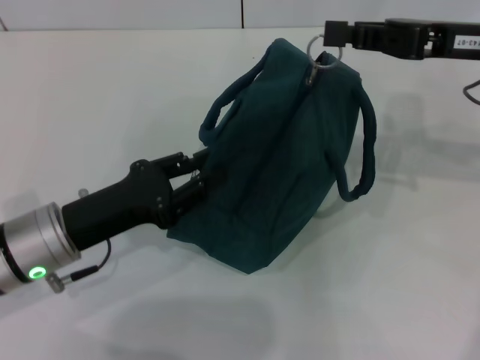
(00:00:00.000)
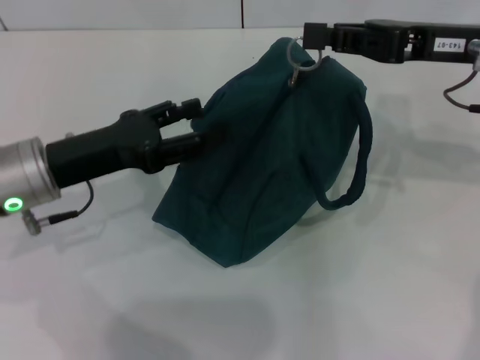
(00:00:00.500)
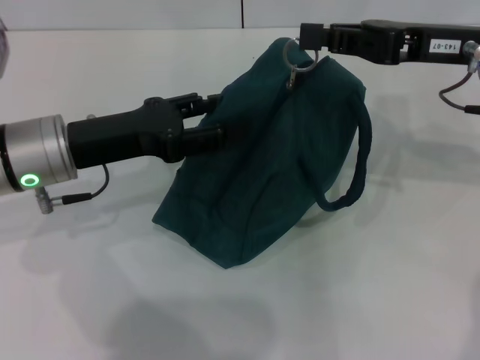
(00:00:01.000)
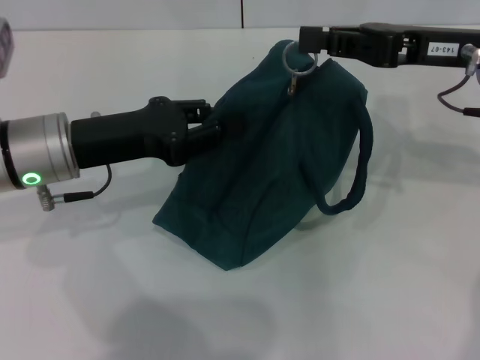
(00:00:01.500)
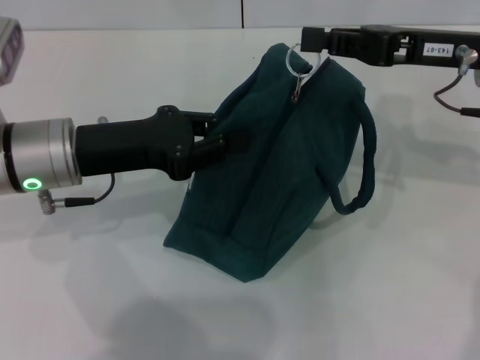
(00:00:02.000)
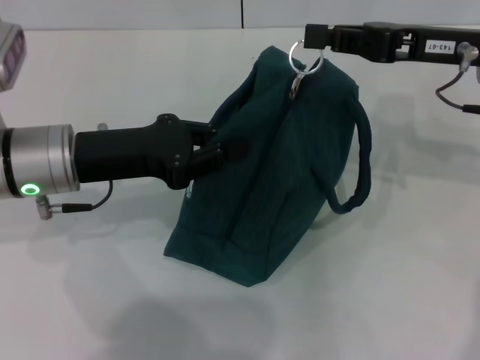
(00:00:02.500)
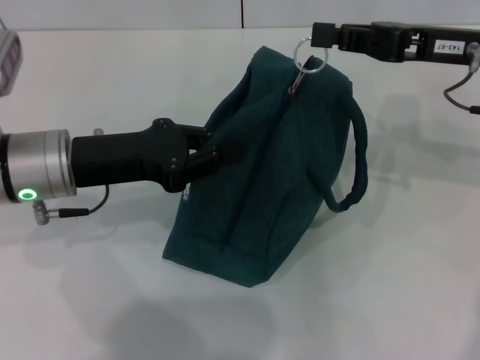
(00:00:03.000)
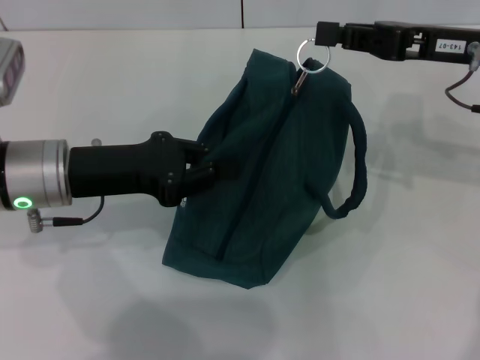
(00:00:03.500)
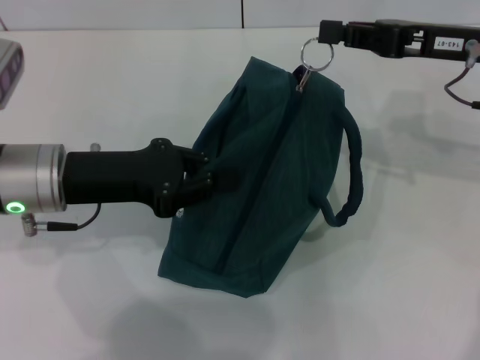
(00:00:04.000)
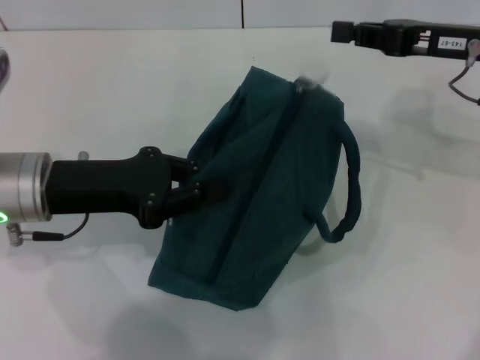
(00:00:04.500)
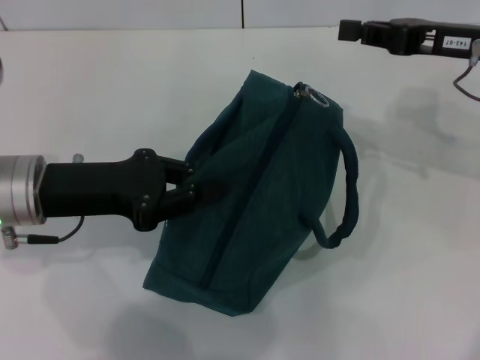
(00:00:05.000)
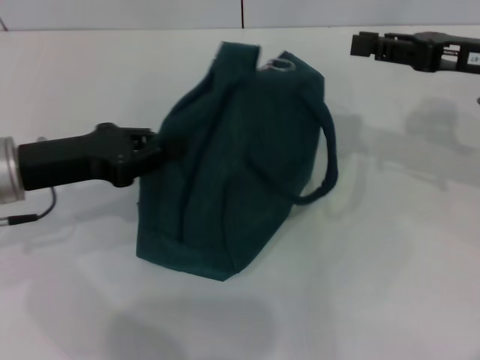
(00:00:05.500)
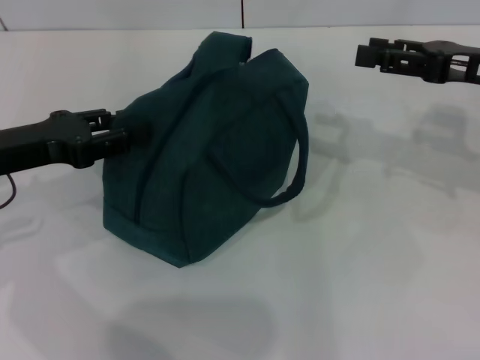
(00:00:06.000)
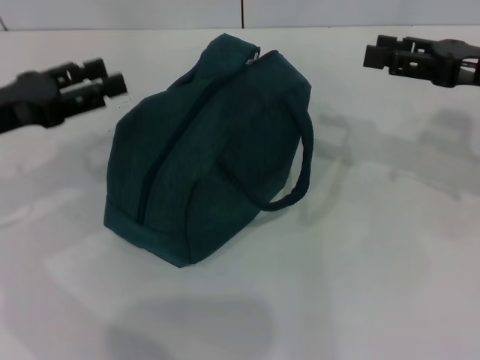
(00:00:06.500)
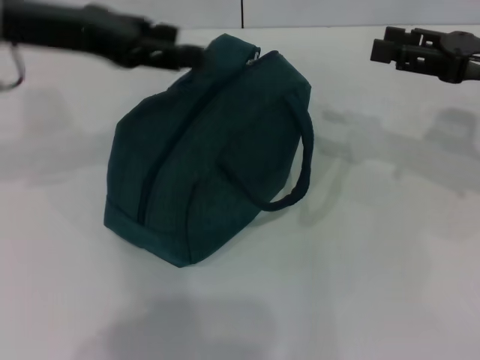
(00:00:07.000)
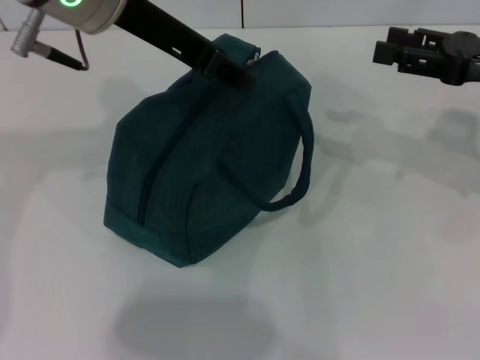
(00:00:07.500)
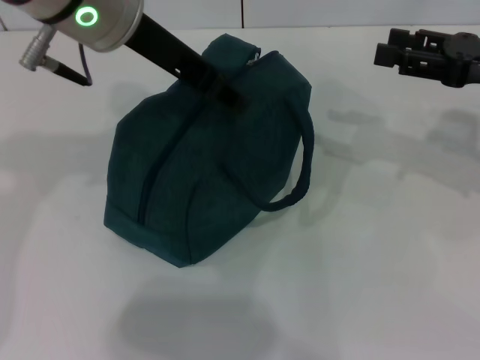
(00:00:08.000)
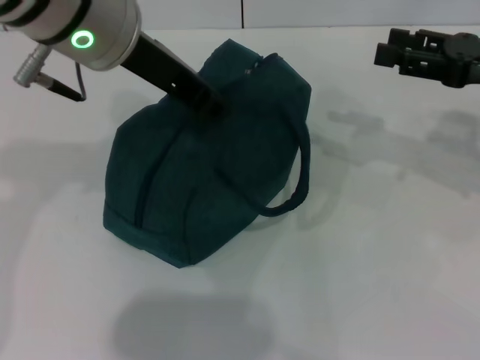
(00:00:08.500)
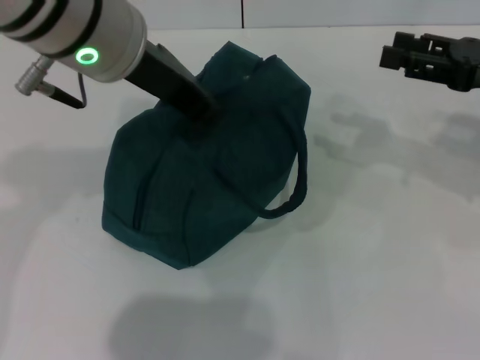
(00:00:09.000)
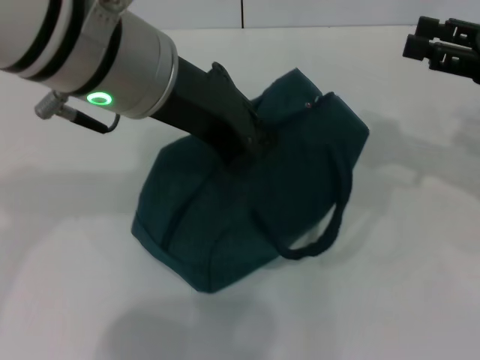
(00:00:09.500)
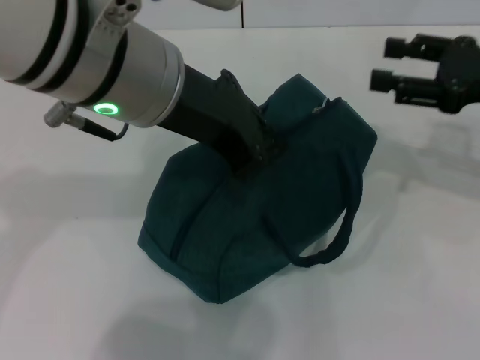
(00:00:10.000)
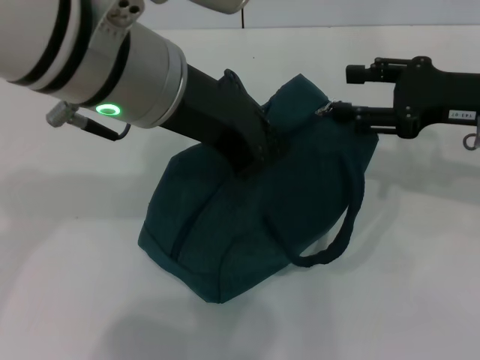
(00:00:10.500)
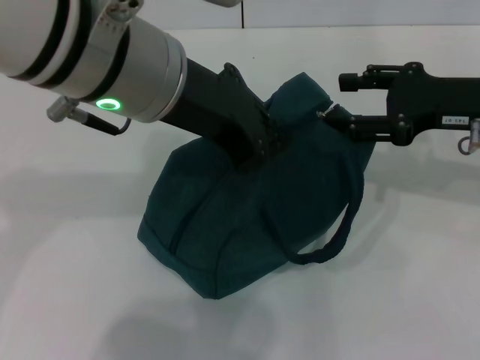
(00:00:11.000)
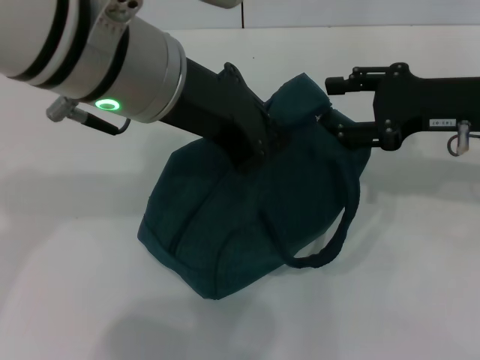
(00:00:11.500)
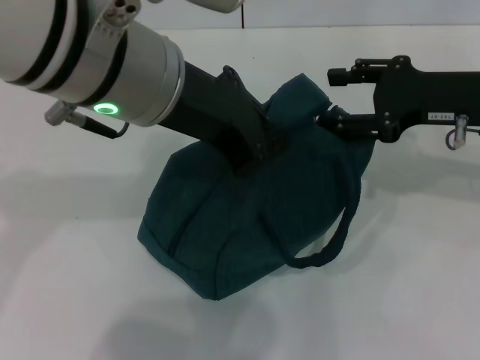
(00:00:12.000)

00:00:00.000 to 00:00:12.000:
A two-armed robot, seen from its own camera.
00:00:00.000 to 00:00:02.000: The left gripper shifts approximately 10 cm upward and forward, and opens, then closes once more.
00:00:04.000 to 00:00:06.000: The left gripper is displaced to the left by approximately 5 cm. Meanwhile the right gripper opens up.
00:00:06.000 to 00:00:08.000: The left gripper shifts some 25 cm to the right and upward, and opens.
00:00:08.000 to 00:00:10.000: The left gripper moves backward, roughly 5 cm, and closes its fingers.
00:00:10.000 to 00:00:12.000: The right gripper shifts by approximately 5 cm.

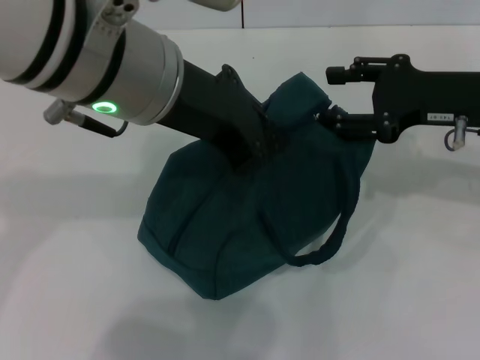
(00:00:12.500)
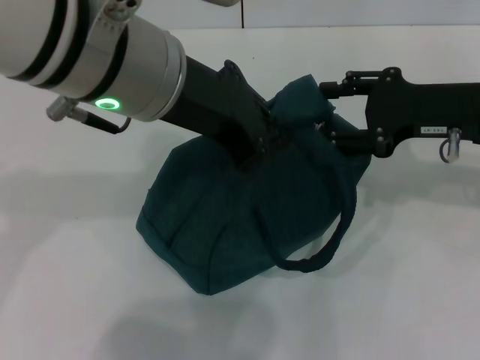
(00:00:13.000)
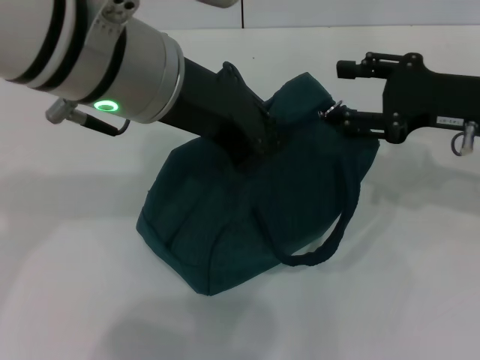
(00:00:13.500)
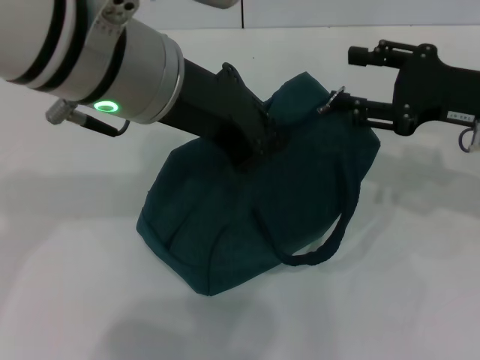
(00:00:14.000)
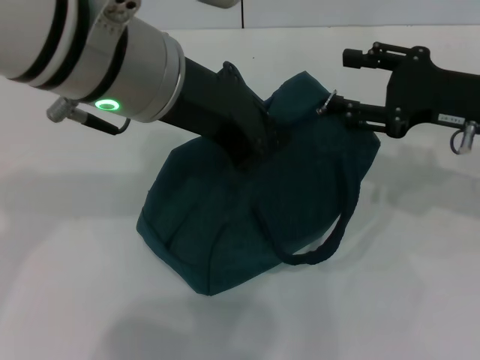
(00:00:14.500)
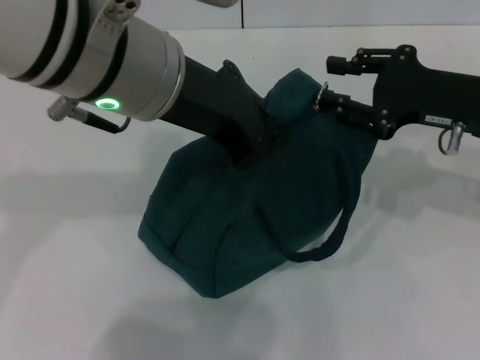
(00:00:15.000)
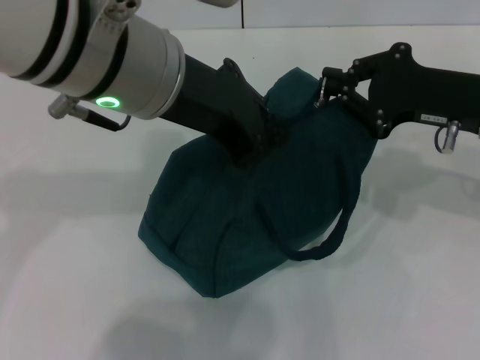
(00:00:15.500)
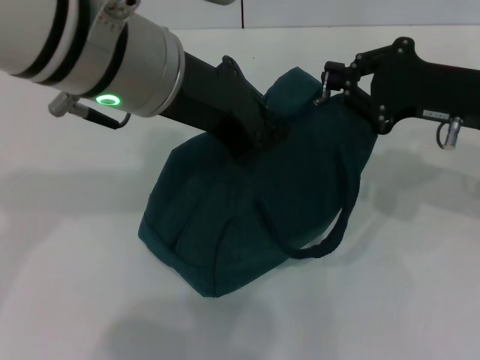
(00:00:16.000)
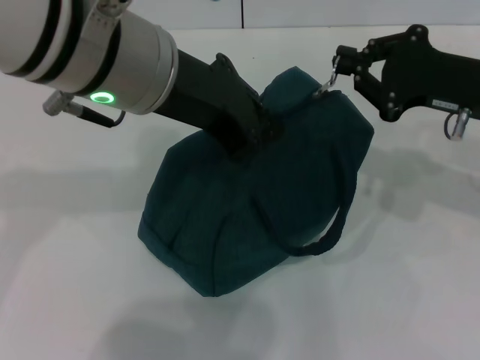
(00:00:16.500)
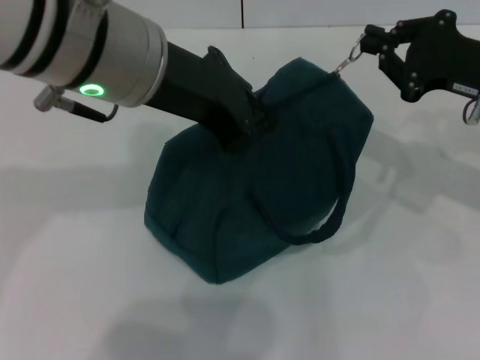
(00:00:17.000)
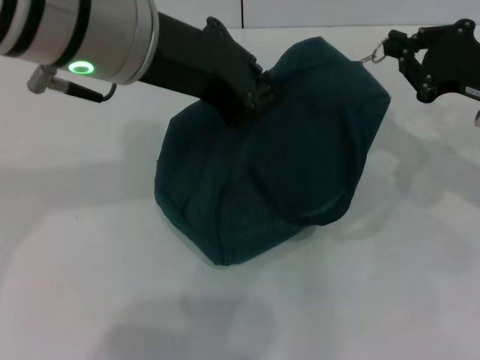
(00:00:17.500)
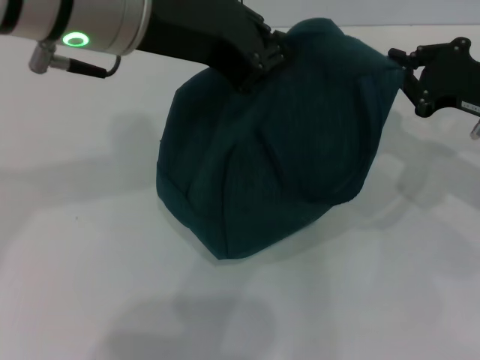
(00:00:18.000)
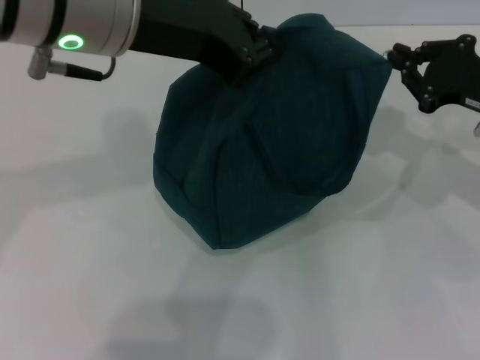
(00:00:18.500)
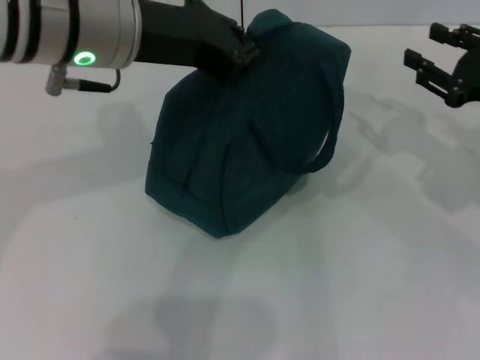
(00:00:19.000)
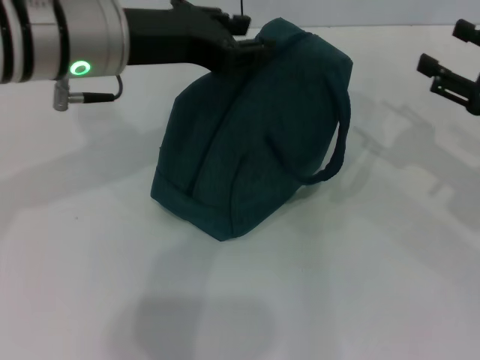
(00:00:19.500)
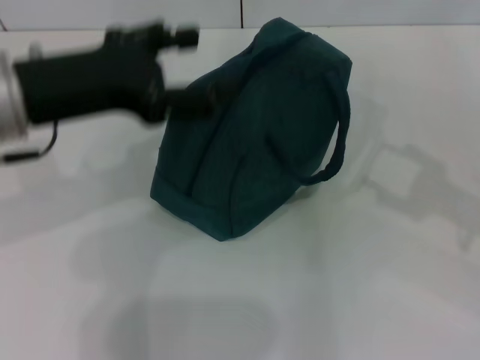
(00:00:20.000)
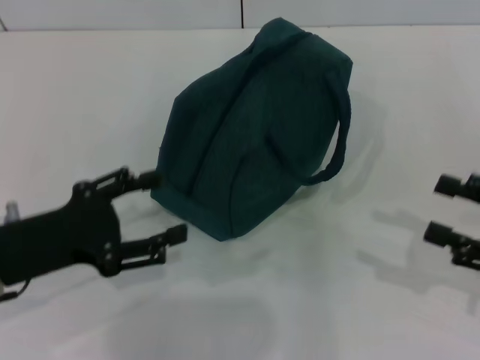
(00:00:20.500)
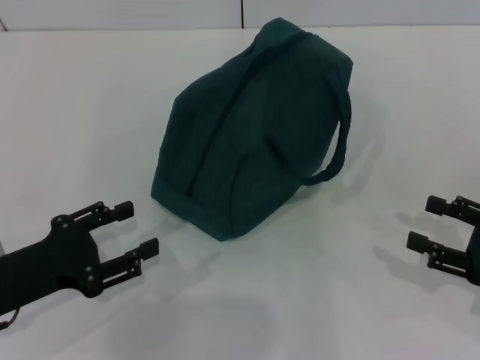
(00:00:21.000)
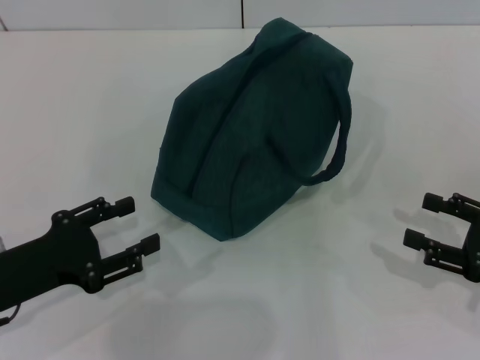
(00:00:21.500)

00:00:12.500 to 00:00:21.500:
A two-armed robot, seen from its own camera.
Step, 00:00:12.500 to 00:00:18.500: Zip up the lunch bag with your right hand.
Step, 00:00:19.000 to 00:00:19.500: Hold the lunch bag with your left hand.
00:00:12.500 to 00:00:14.500: The grippers stay close to where they were, moving slightly.
00:00:14.500 to 00:00:17.000: The right gripper closes.
00:00:17.000 to 00:00:19.500: The left gripper moves approximately 5 cm. The right gripper shifts approximately 5 cm to the right, and opens.
00:00:19.500 to 00:00:21.500: The left gripper travels downward, backward and to the left by approximately 25 cm, and opens up. The right gripper moves backward and downward, about 10 cm.
